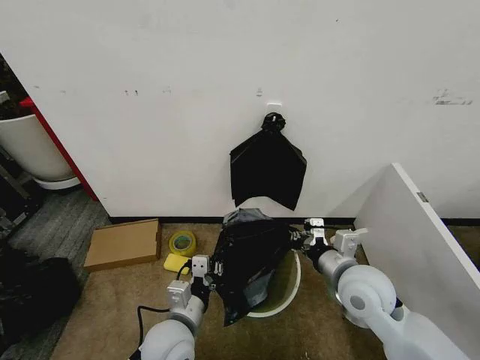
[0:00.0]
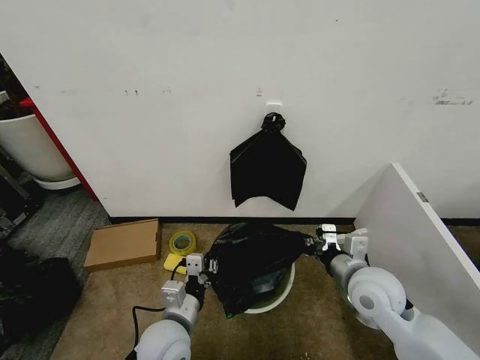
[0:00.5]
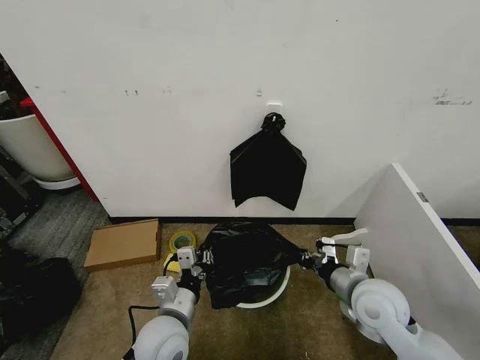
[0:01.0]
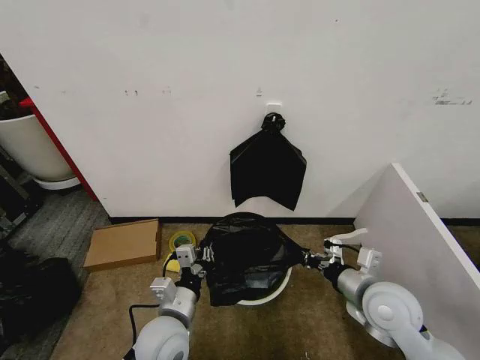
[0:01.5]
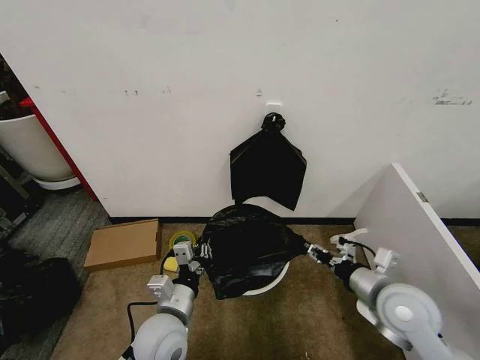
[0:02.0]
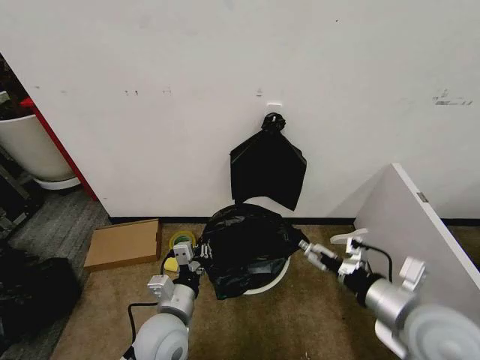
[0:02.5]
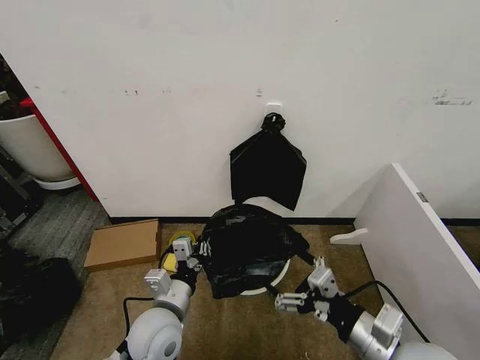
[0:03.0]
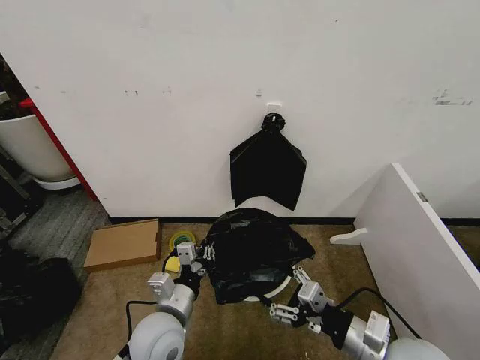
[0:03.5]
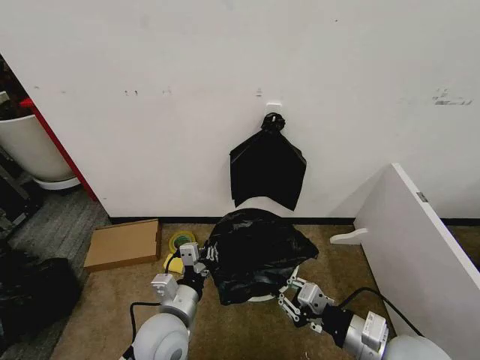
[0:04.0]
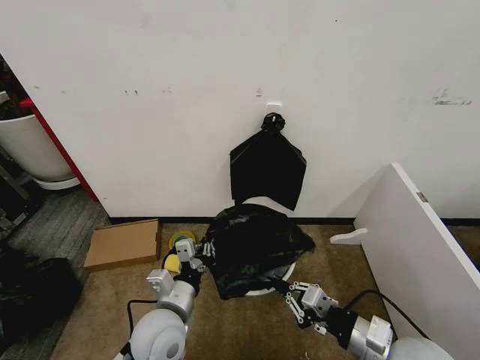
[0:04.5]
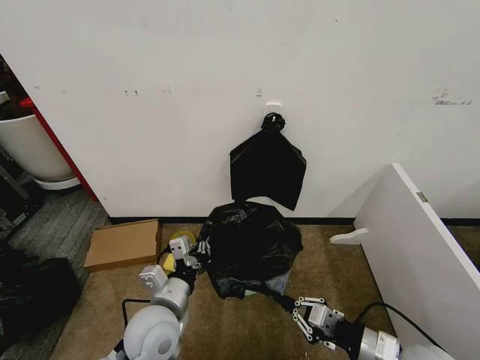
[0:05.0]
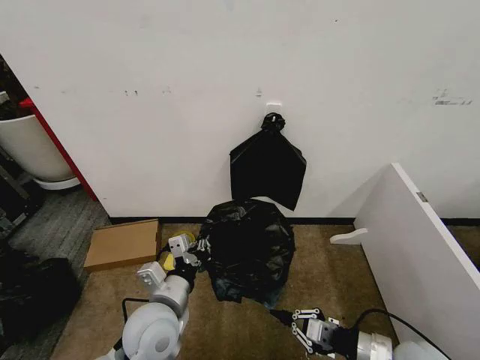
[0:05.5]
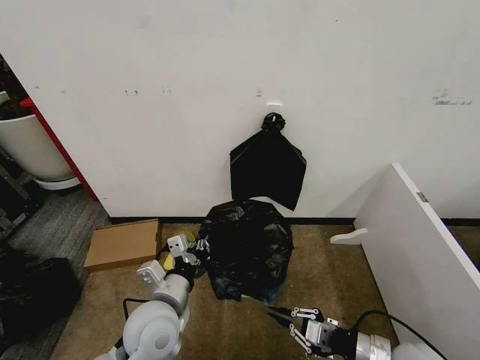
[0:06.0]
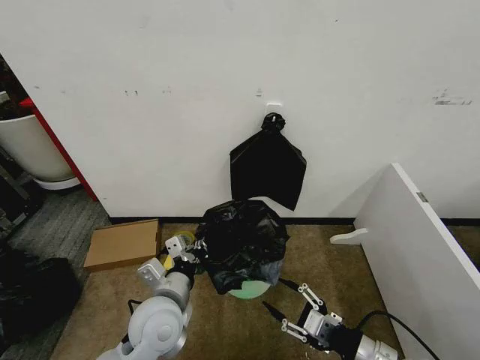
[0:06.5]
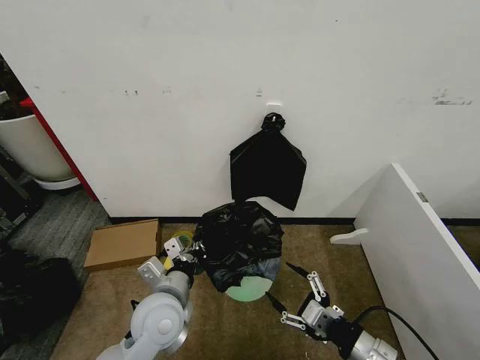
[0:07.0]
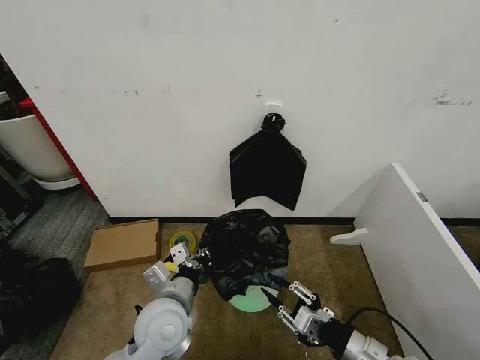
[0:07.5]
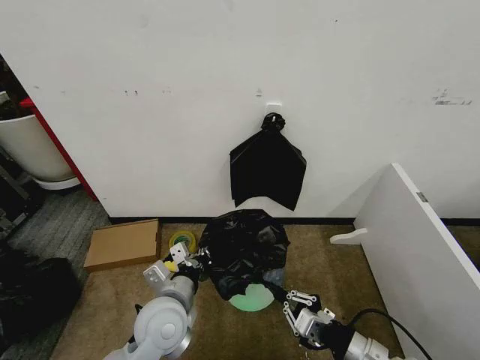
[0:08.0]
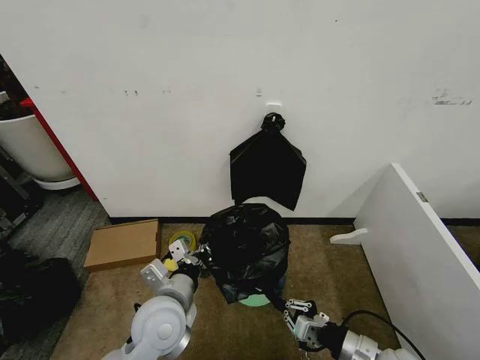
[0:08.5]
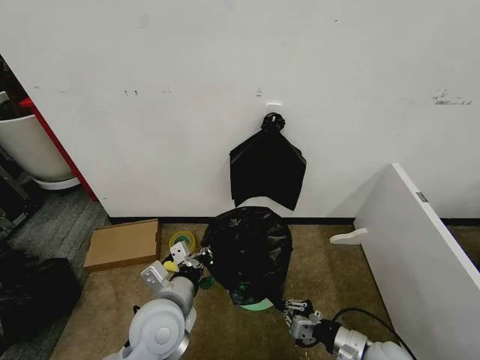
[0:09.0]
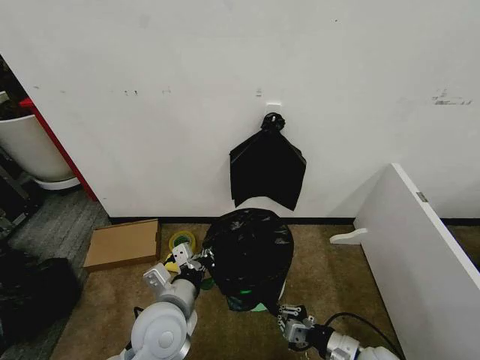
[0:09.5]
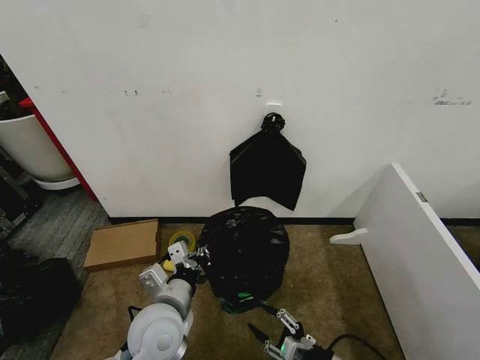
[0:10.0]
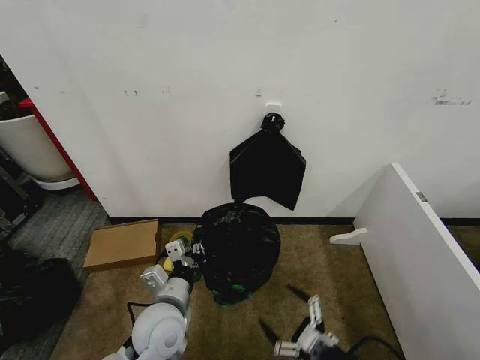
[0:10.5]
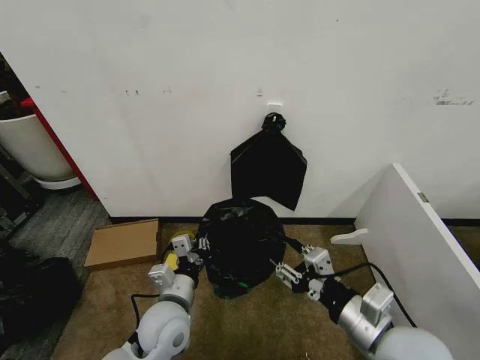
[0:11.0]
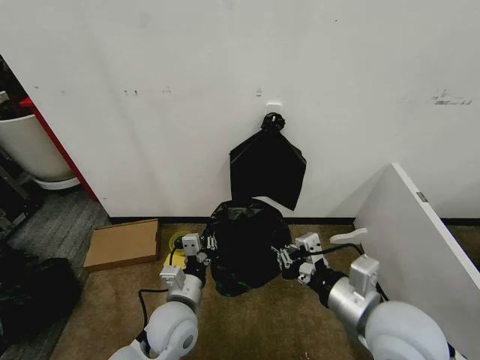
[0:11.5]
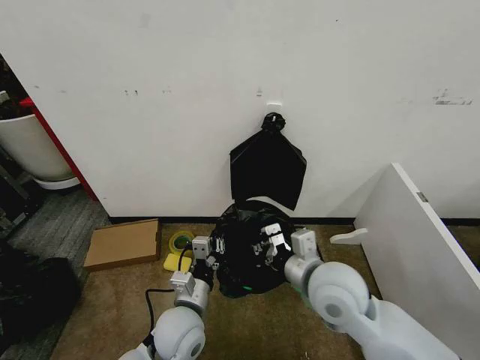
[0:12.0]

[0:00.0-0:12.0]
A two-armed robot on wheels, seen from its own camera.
Task of the whole recording: Place the garbage bag over the trash bin.
0:00.0 to 0:02.0: The right gripper is displaced to the right by about 5 cm, and opens up.
0:02.0 to 0:04.0: The right gripper shifts about 10 cm backward, and opens, then closes again.
0:04.0 to 0:06.0: The right gripper heads downward, covering approximately 5 cm.
0:06.0 to 0:08.0: The right gripper changes place by approximately 5 cm, and opens, then closes once more.
0:08.0 to 0:10.0: The right gripper shifts roughly 10 cm downward, and opens its fingers.
0:10.0 to 0:12.0: The left gripper is displaced downward by approximately 5 cm. The right gripper is displaced upward, forward and to the left by roughly 25 cm, and closes.

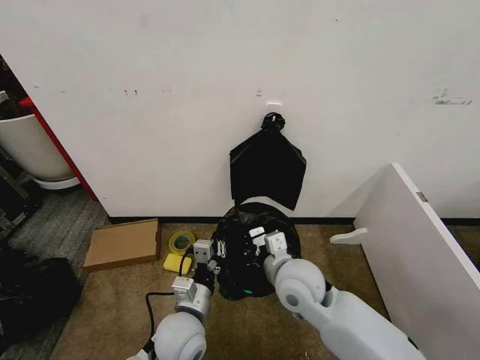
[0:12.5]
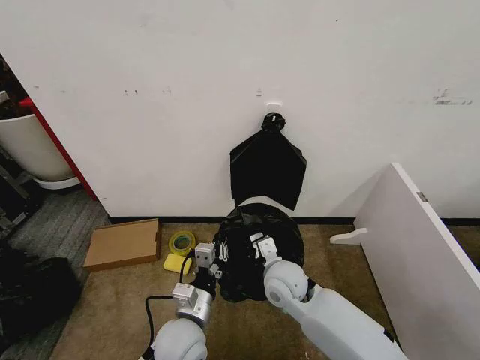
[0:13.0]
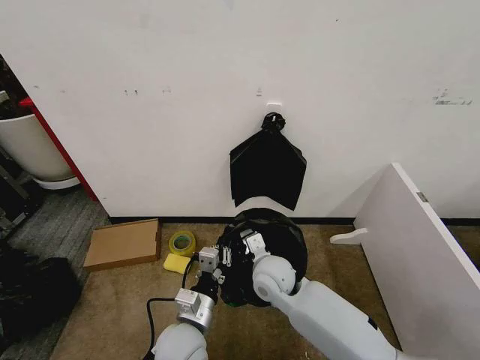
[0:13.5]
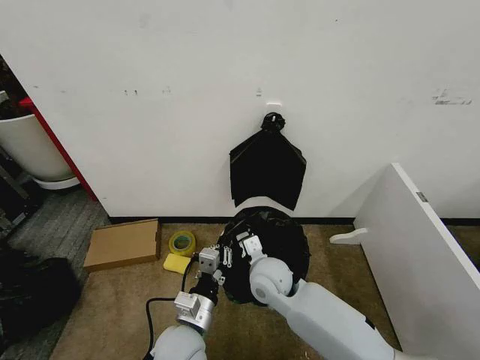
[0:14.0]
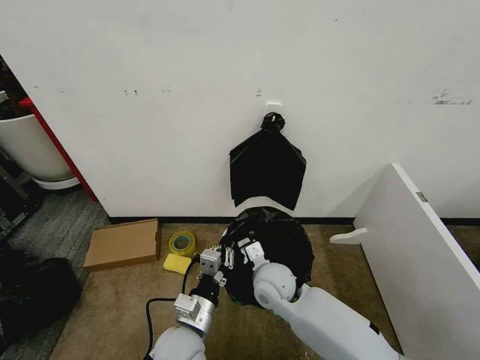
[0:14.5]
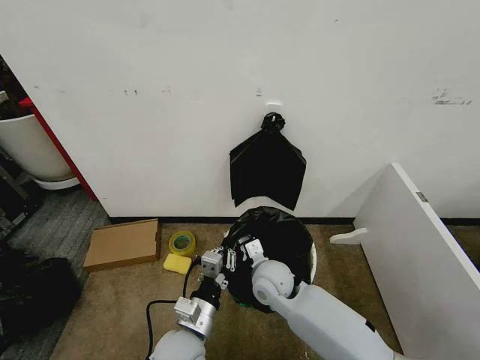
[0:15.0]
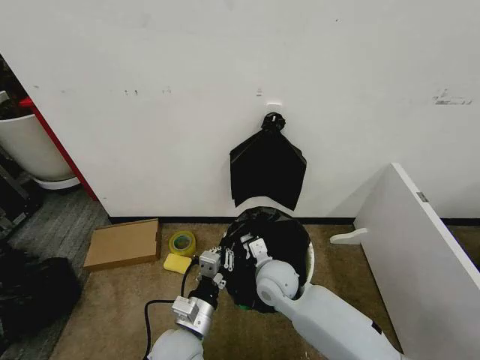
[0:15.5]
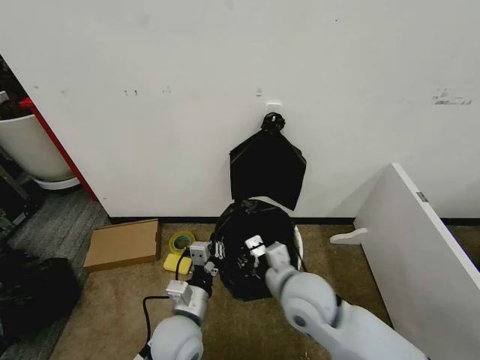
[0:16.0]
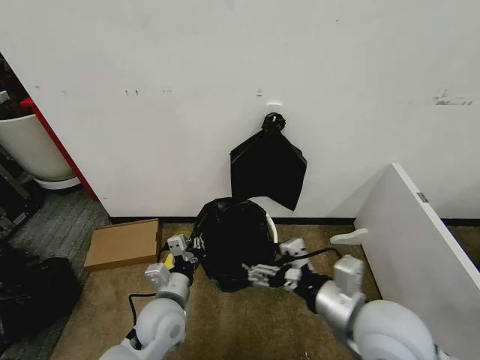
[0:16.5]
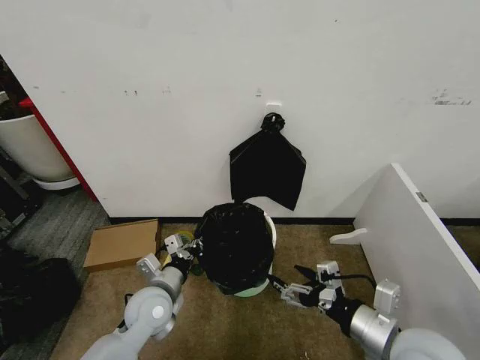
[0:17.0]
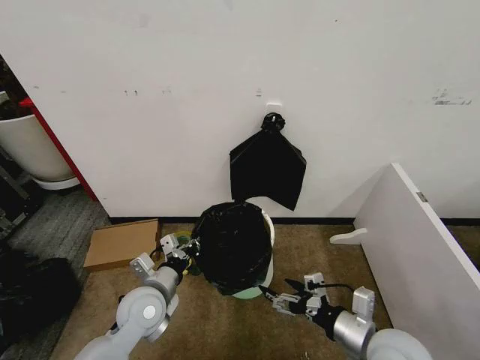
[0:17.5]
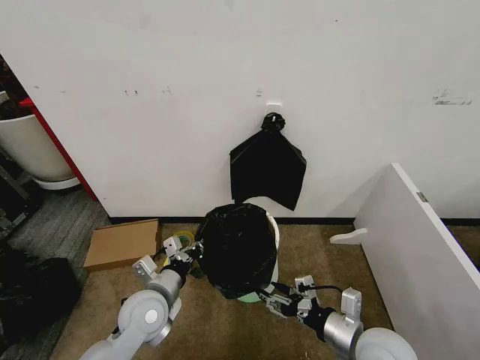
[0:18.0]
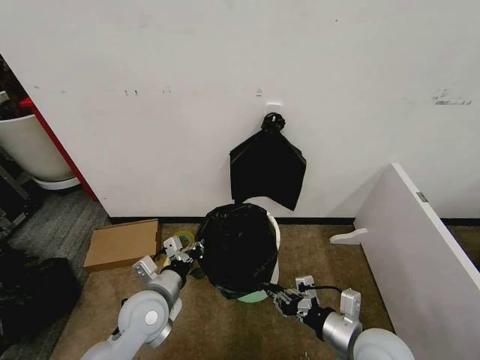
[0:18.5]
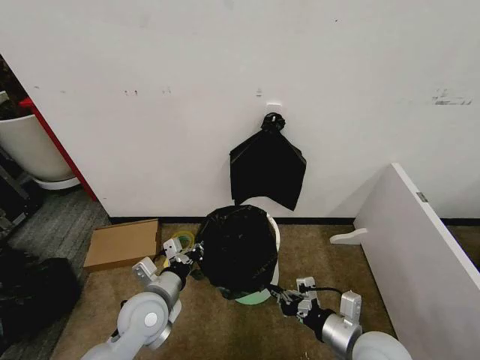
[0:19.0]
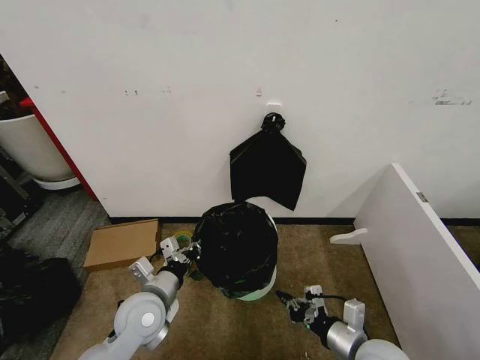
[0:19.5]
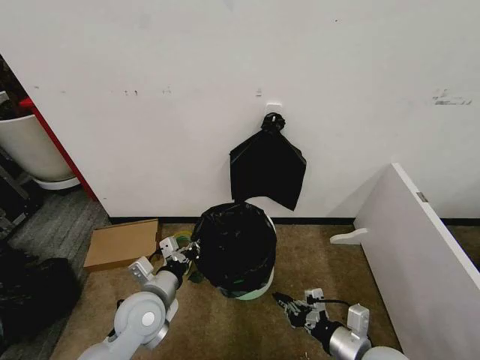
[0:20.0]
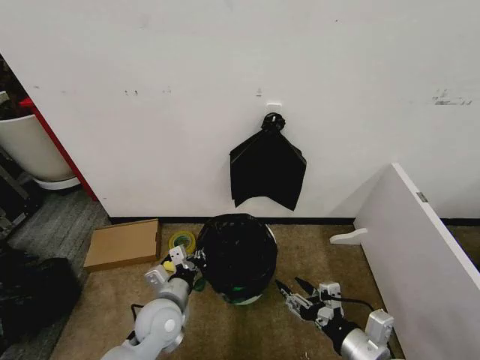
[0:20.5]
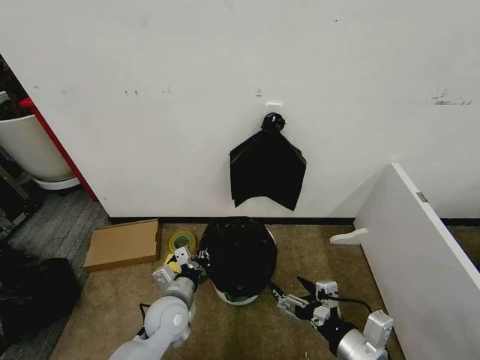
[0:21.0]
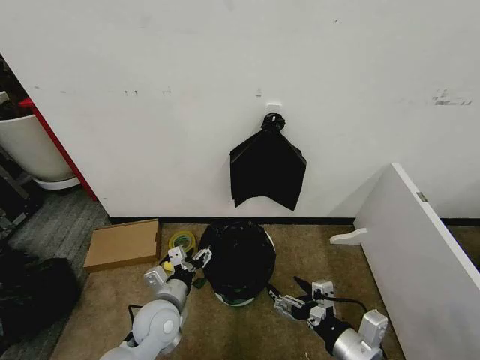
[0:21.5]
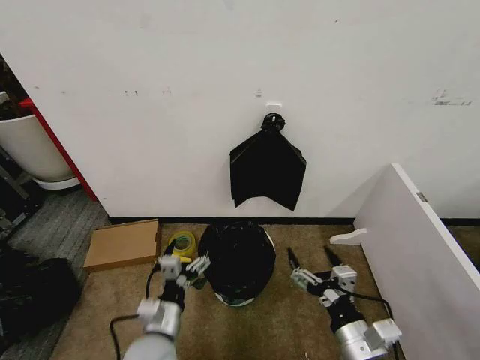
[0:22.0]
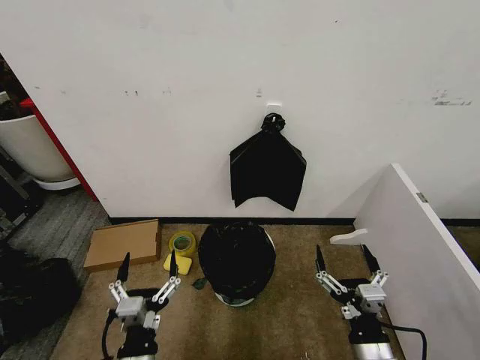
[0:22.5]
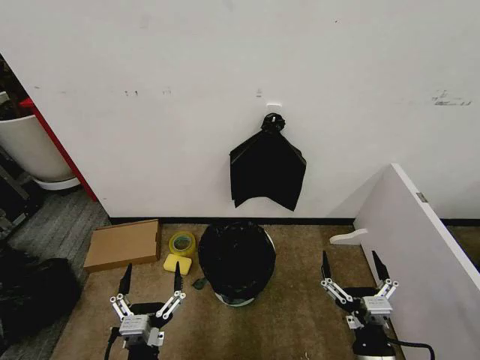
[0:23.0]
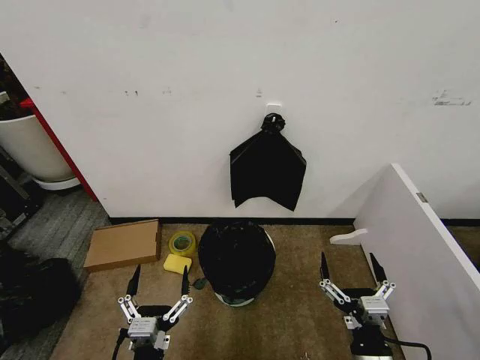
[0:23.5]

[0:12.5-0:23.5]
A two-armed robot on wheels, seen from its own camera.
Task of the whole recording: Place the garbage bag over the trash bin.
0:12.5 to 0:14.5: The right gripper goes roughly 10 cm downward.
0:14.5 to 0:16.0: The right gripper goes some 10 cm upward and backward.
0:16.0 to 0:18.0: The left gripper moves to the left, about 10 cm; the right gripper goes some 15 cm to the right and backward, and opens up.
0:18.0 to 0:20.0: The right gripper closes.
0:20.0 to 0:21.5: The right gripper moves about 5 cm, and opens; the left gripper opens.
0:21.5 to 0:23.5: The left gripper heads backward, covering roughly 20 cm. Meanwhile the right gripper is displaced downward by some 5 cm.

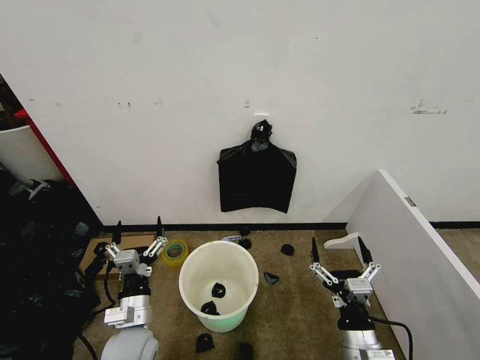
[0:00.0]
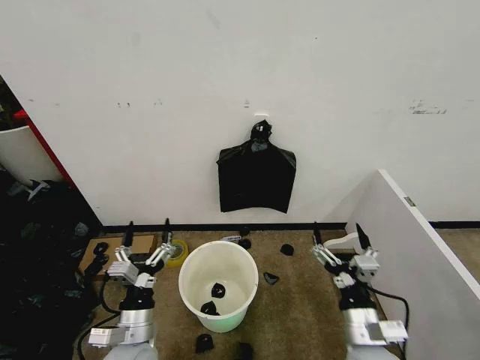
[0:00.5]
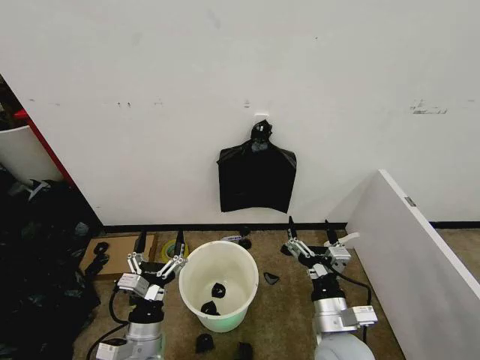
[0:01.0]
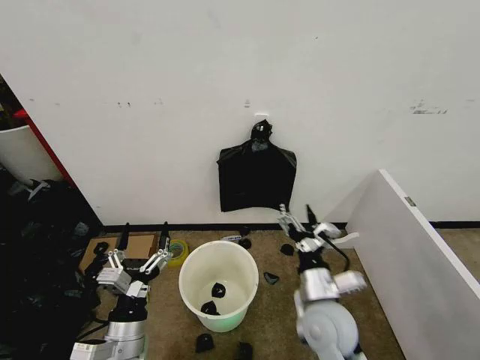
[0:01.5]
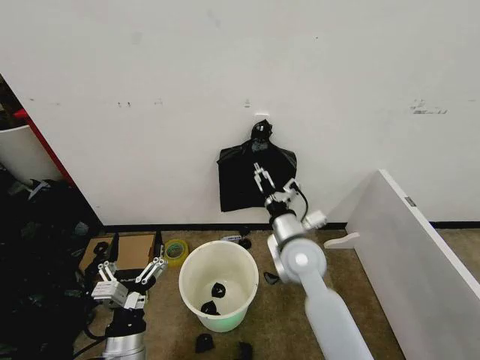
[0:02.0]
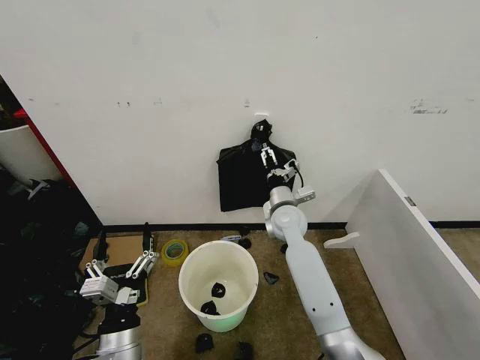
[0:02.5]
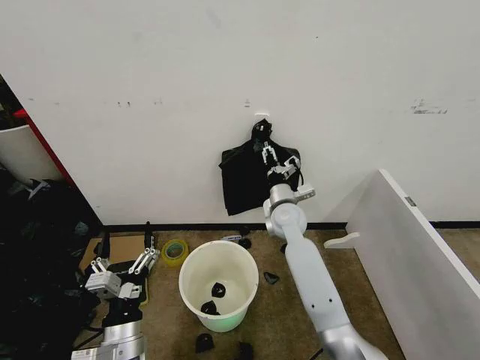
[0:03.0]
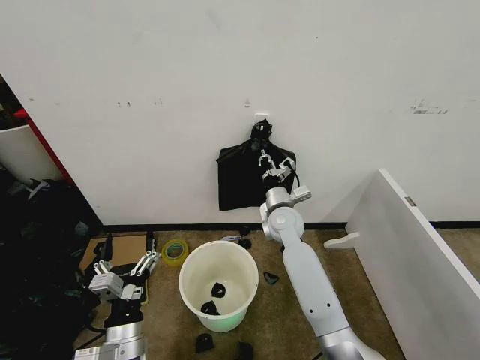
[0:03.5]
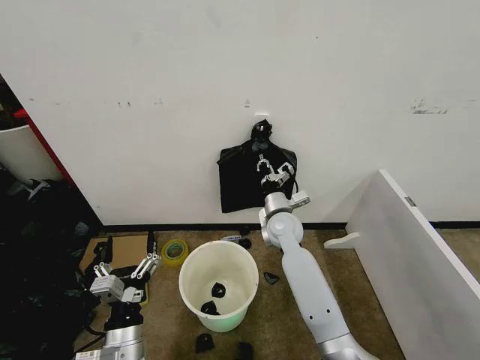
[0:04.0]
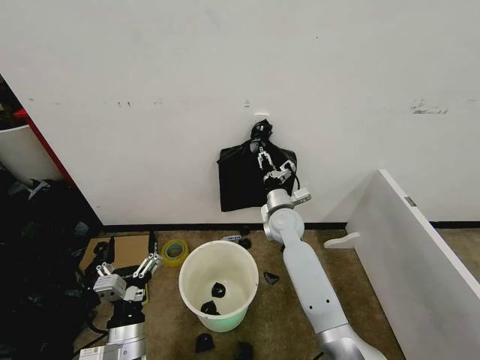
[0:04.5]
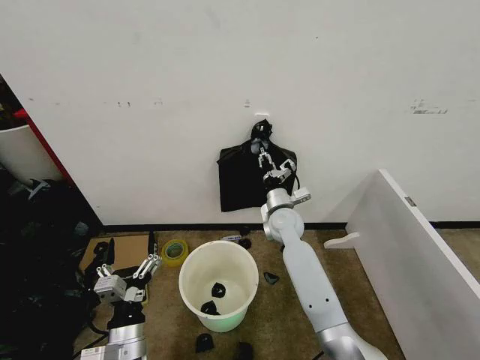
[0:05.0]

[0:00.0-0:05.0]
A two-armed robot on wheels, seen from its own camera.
Task of the whole recording: Place the garbage bag over the trash bin.
0:02.5 to 0:05.0: The right gripper closes up.
